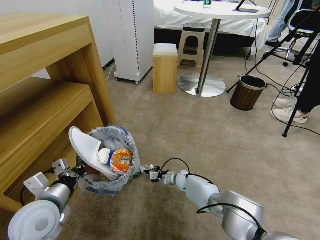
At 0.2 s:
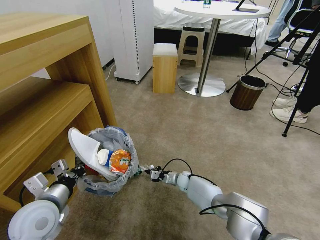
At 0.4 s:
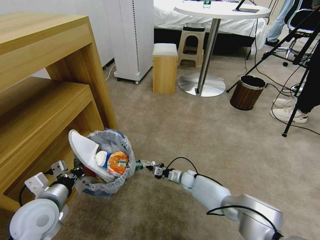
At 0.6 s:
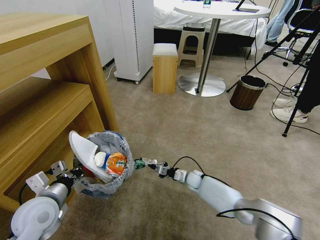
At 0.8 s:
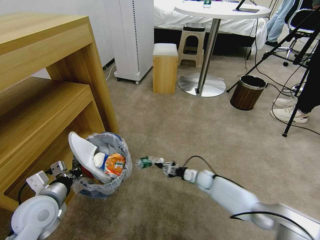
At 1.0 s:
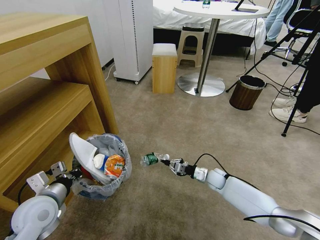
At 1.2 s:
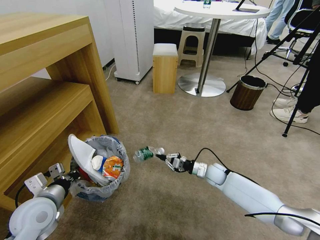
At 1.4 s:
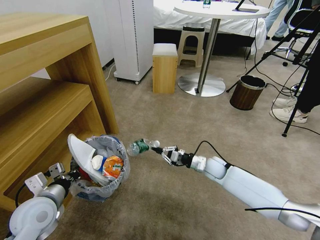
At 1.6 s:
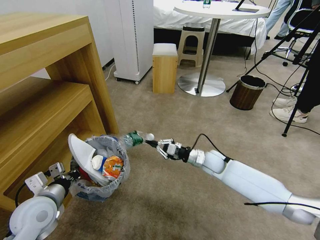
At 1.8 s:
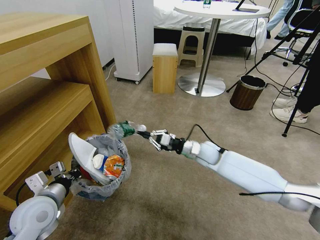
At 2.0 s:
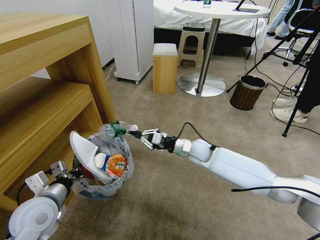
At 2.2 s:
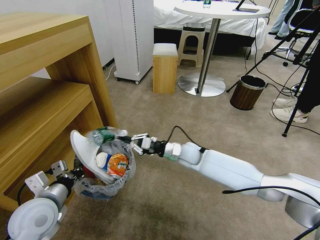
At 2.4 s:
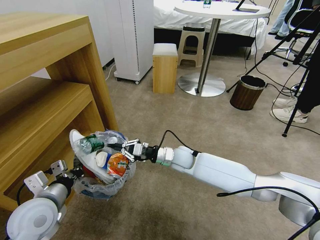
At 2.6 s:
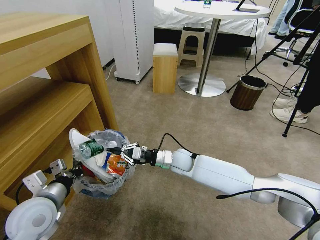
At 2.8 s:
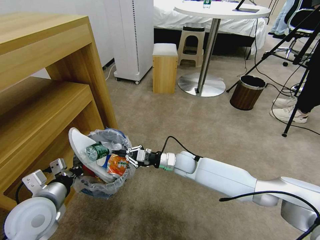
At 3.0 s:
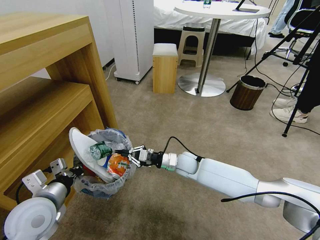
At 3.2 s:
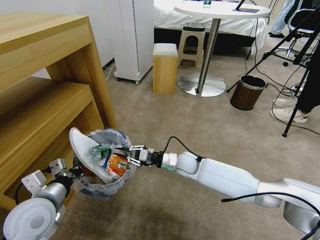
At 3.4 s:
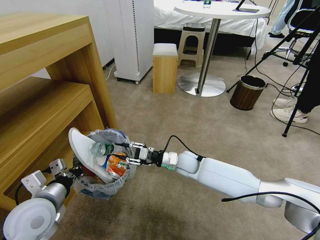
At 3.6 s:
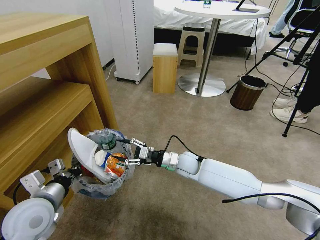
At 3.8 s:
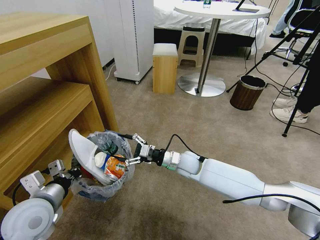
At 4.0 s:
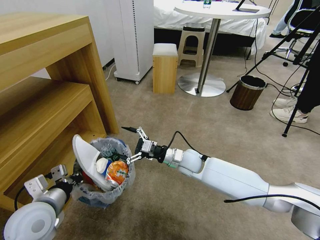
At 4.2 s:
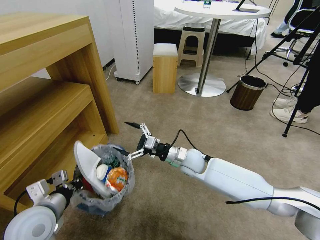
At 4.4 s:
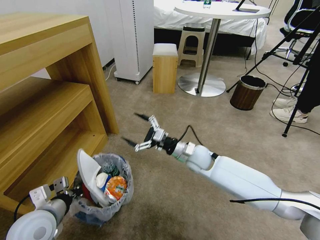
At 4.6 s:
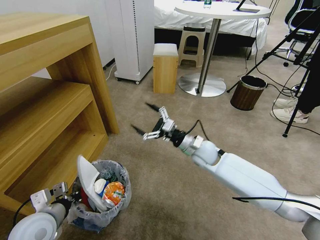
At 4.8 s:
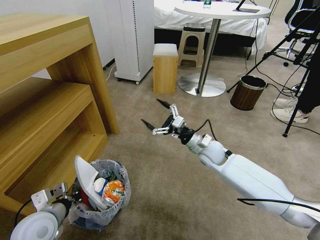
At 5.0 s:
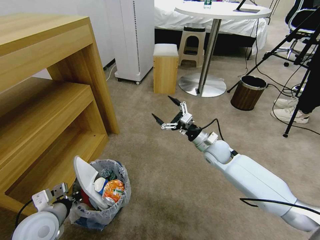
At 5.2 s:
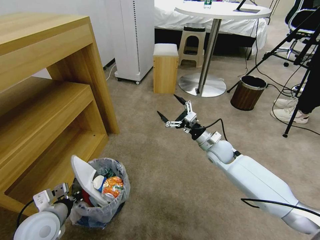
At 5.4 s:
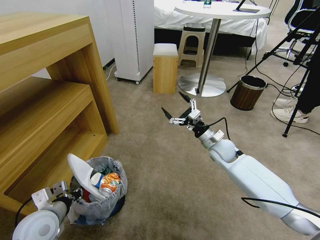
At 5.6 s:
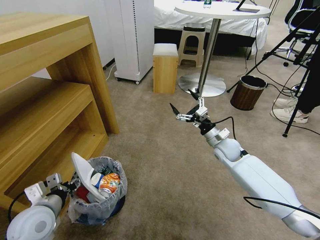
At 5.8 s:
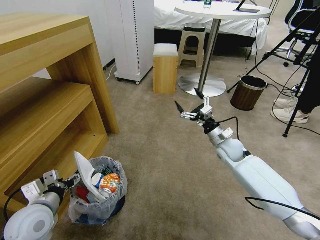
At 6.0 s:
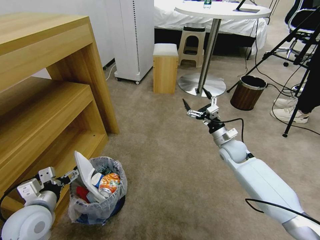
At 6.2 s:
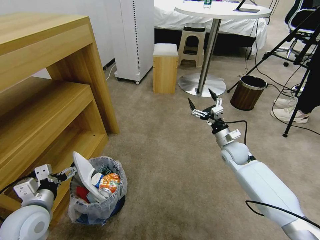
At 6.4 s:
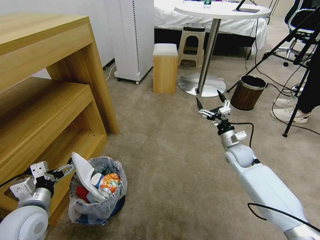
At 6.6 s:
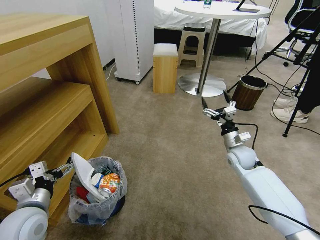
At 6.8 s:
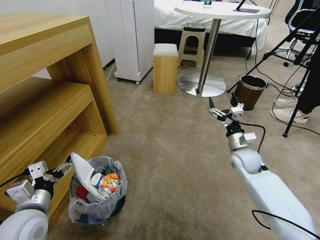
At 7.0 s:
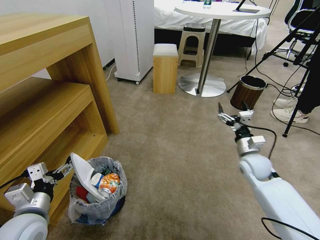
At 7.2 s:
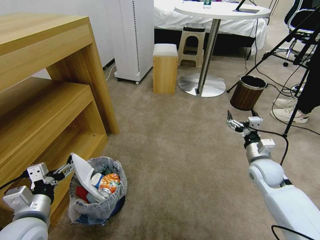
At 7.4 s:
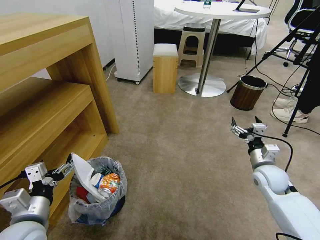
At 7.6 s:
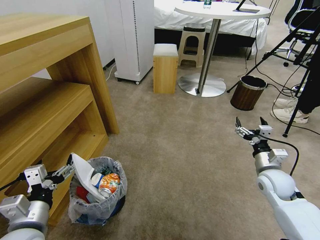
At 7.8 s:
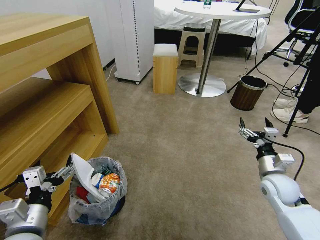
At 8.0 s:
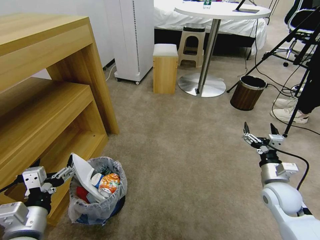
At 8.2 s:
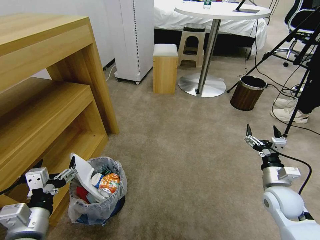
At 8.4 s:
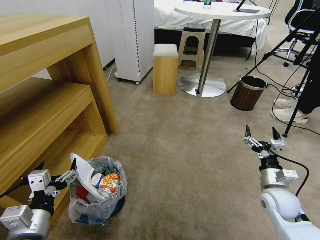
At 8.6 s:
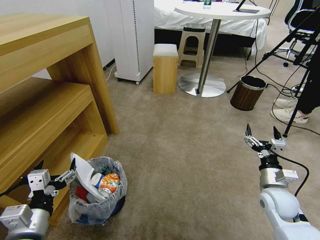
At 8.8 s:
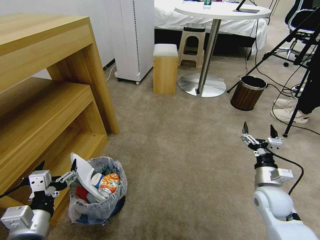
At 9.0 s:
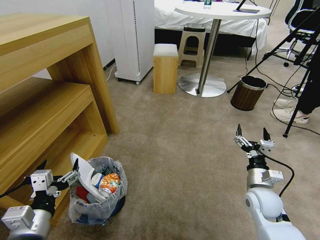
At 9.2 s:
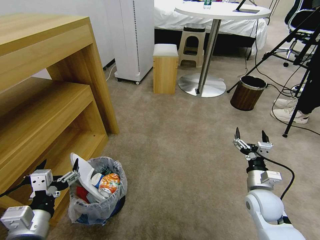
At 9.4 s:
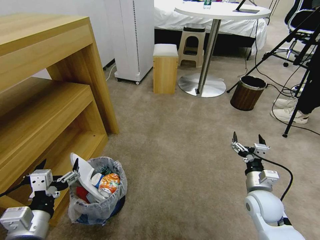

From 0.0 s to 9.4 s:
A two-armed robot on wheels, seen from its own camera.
Task of the whole recording: Pick up the trash bin and place the garbage on the floor into it.
From 0.0 s to 1.6 s: The right gripper is displaced upward by roughly 20 cm.
From 1.6 s to 3.2 s: The right gripper goes approximately 10 cm to the left.
From 3.2 s to 4.8 s: The left gripper shifts roughly 5 cm downward. The right gripper goes some 10 cm to the right and upward, and opens its fingers.
From 4.8 s to 6.2 s: The left gripper opens its fingers; the right gripper shifts roughly 10 cm to the right.
From 6.2 s to 7.8 s: The right gripper heads backward and to the right, covering roughly 15 cm; the left gripper moves backward, approximately 5 cm.
From 7.8 s to 9.4 s: The right gripper shifts approximately 5 cm to the left.
